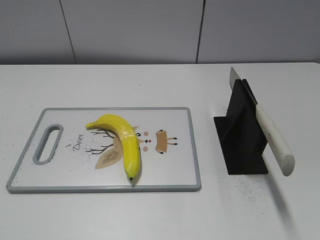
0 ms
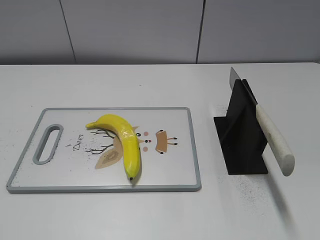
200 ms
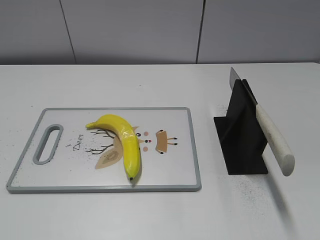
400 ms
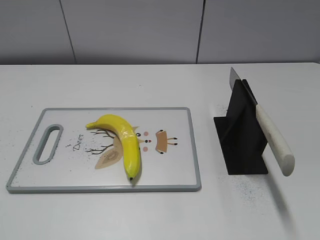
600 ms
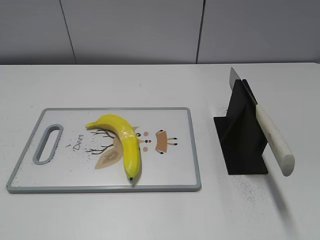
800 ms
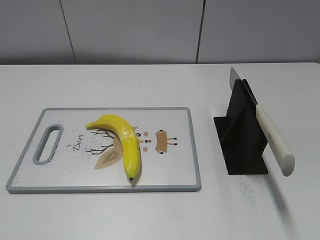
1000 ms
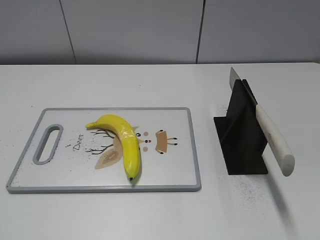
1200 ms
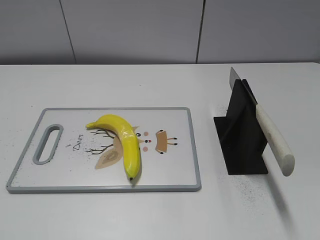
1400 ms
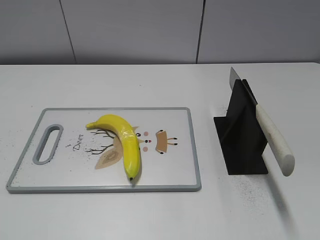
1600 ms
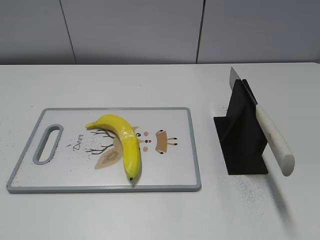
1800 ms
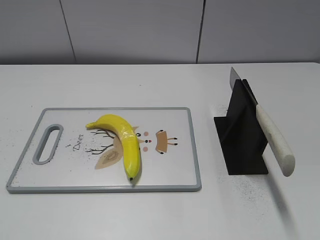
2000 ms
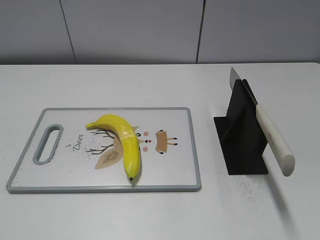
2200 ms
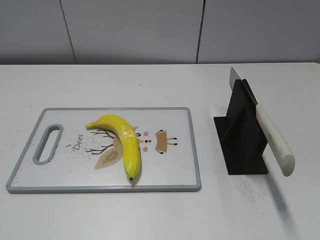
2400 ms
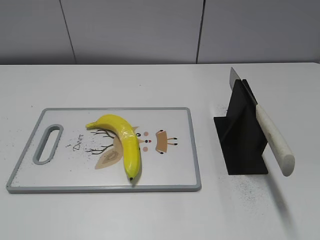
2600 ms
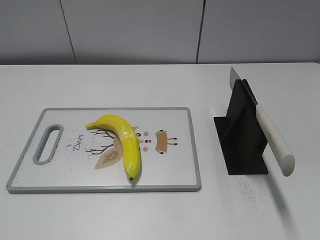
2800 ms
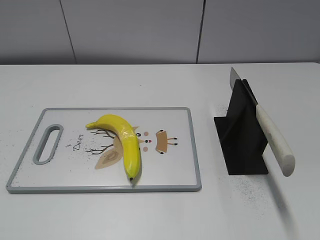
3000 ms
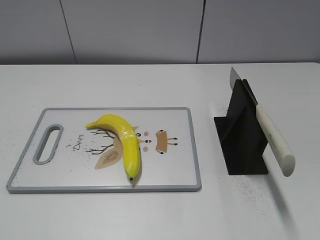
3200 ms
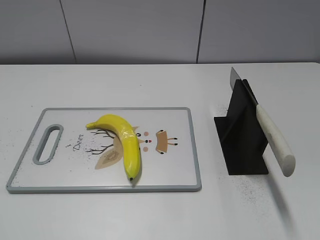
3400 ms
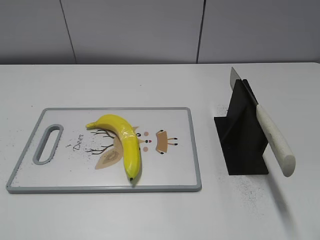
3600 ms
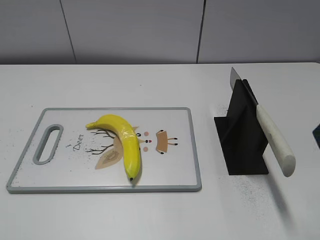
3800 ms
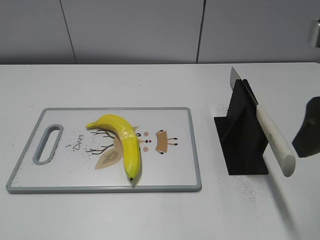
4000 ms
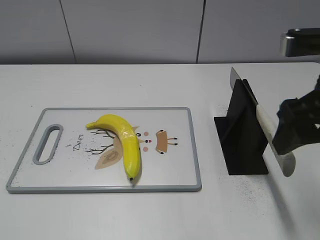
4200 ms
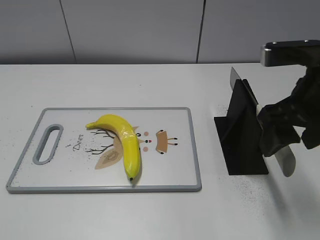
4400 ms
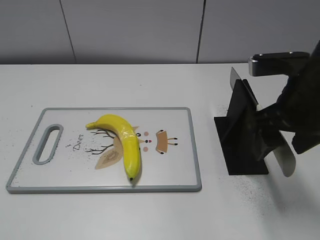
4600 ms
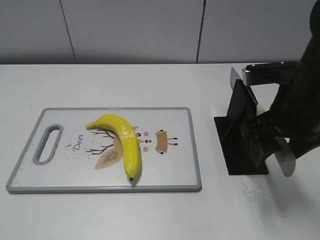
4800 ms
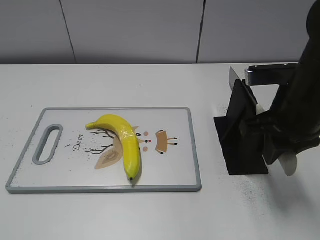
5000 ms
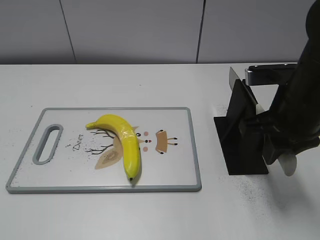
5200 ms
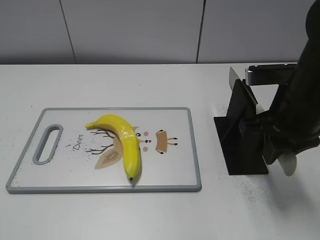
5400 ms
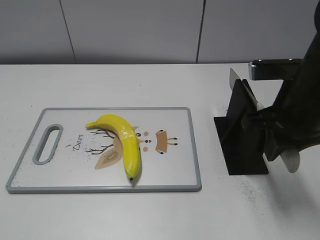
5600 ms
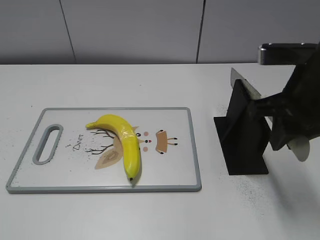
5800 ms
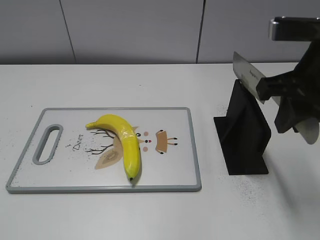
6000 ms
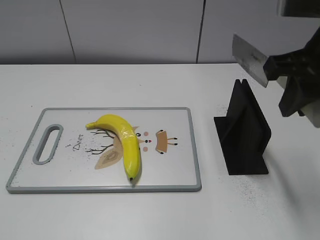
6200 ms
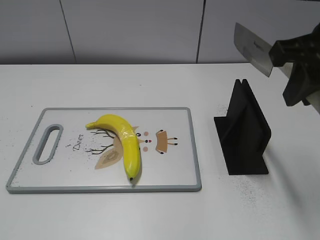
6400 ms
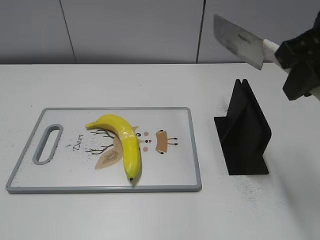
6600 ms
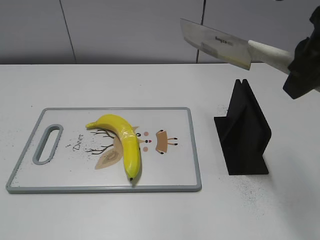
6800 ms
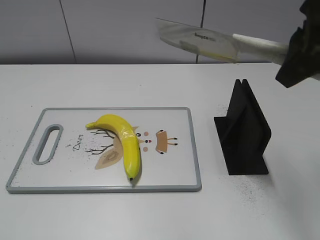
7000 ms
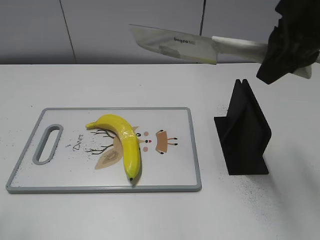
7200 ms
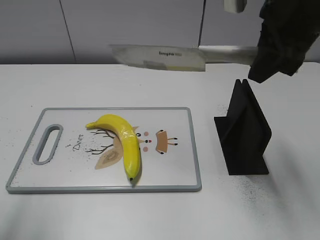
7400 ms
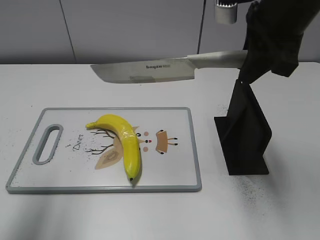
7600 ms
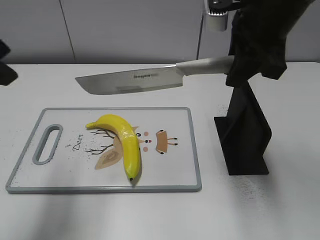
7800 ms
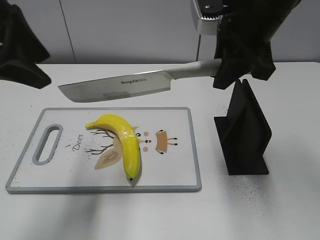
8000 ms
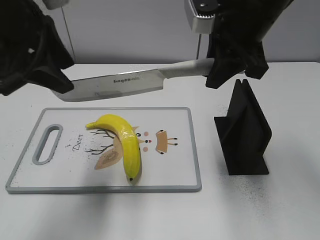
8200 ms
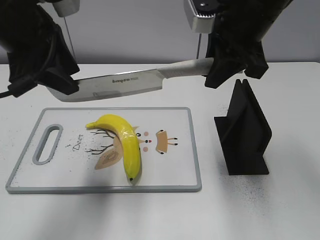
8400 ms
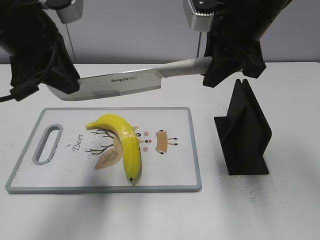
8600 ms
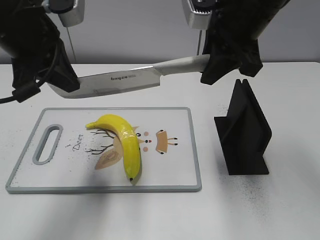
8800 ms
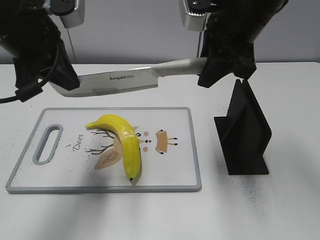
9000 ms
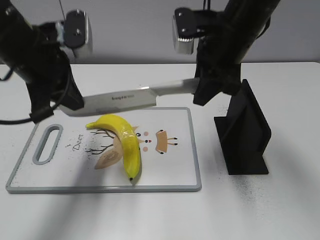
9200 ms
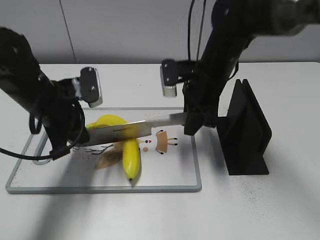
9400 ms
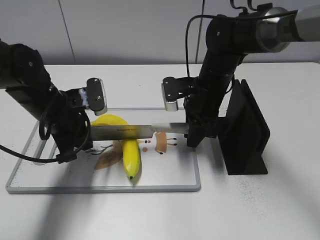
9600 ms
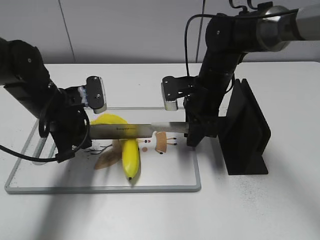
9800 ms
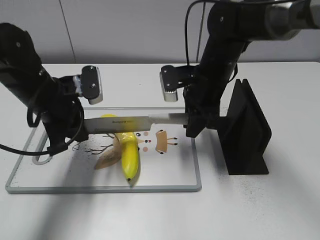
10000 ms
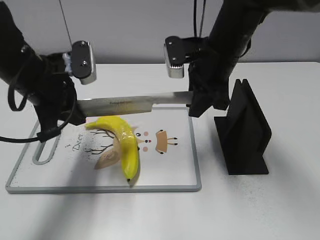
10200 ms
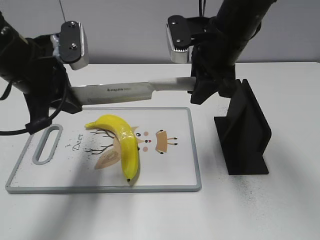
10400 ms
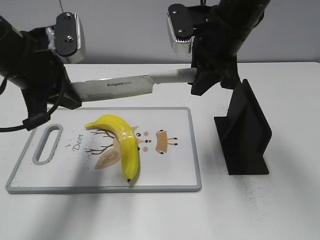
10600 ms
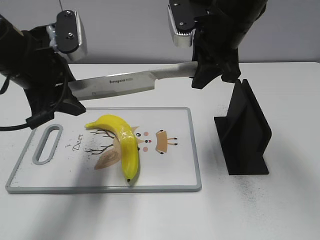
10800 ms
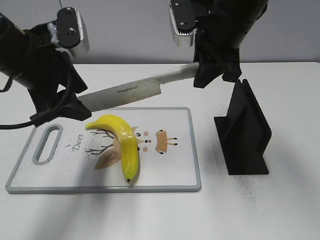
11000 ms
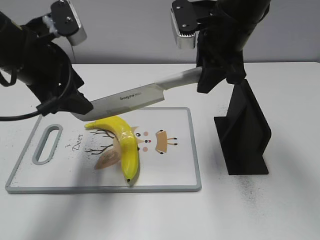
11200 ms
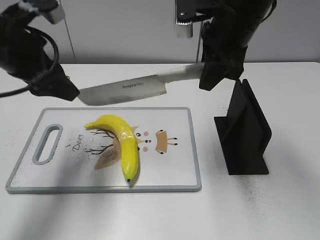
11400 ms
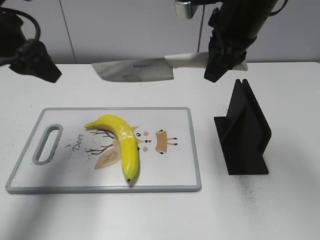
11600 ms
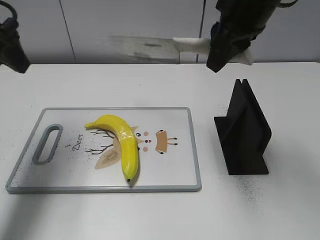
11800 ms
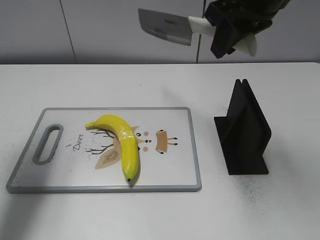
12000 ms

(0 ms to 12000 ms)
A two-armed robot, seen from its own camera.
Task of the whole recording: cut plastic banana.
Step, 0 ms - 6400 ms: Grab the knife handle with your right hand.
Step, 6800 ms - 11200 ms: Lift the knife with your right hand.
3000 ms - 4400 ms: The right gripper moves forward, to the left and downward, approximately 20 cm.
4400 ms - 6000 ms: The right gripper closes up.
6000 ms - 7600 ms: The left gripper is displaced forward and upward by approximately 20 cm. Meanwhile the right gripper shifts some 5 cm forward.
7600 ms - 9000 ms: The left gripper travels forward, to the right and downward by some 15 cm, and closes. The right gripper ends up some 5 cm from where it was.
9000 ms - 10400 ms: The left gripper goes approximately 5 cm downward, while the right gripper goes downward and returns, approximately 20 cm each way.
10400 ms - 12000 ms: The left gripper heads to the left and upward, covering about 15 cm, and opens, while the right gripper heads upward, covering roughly 10 cm.

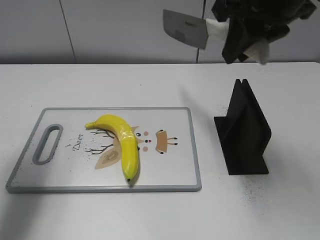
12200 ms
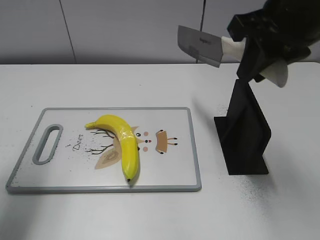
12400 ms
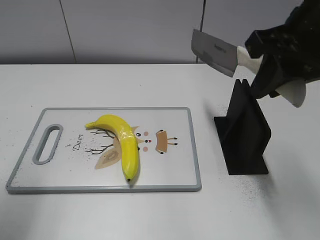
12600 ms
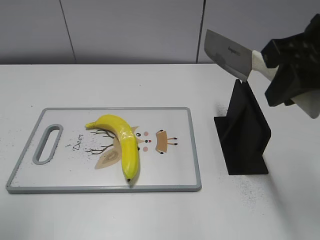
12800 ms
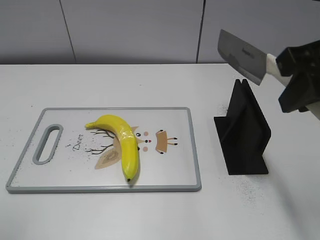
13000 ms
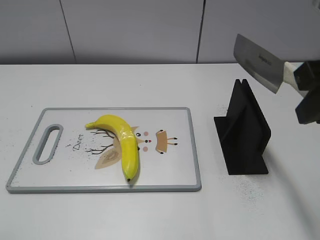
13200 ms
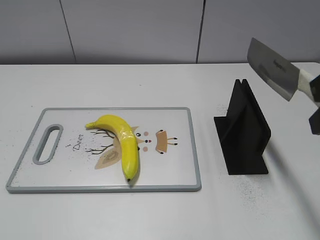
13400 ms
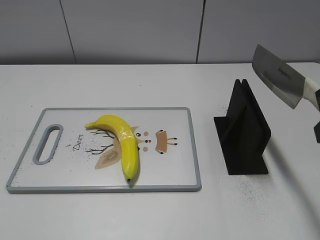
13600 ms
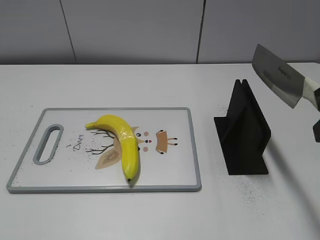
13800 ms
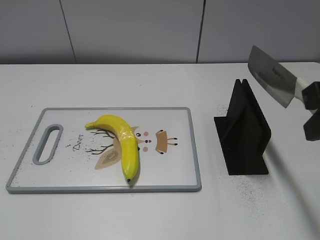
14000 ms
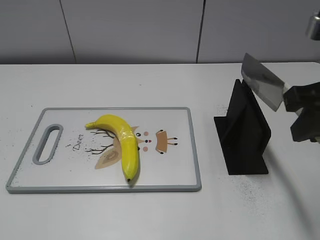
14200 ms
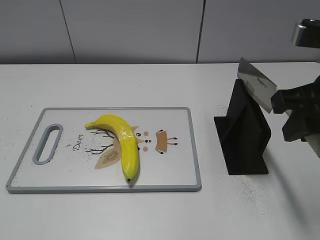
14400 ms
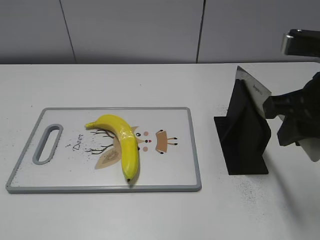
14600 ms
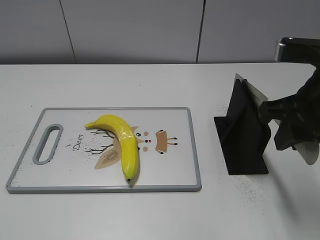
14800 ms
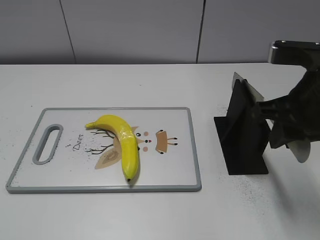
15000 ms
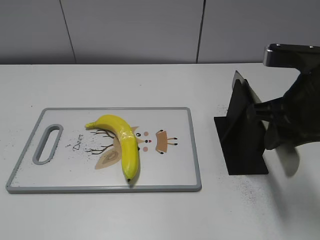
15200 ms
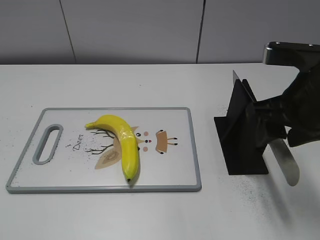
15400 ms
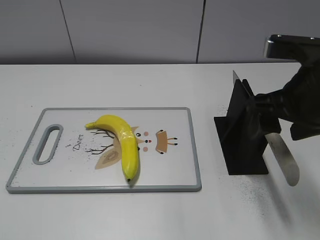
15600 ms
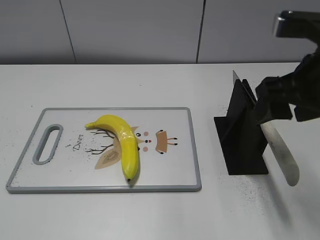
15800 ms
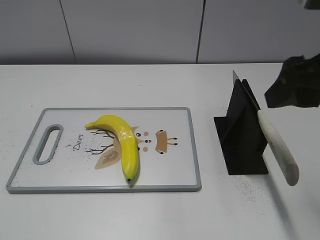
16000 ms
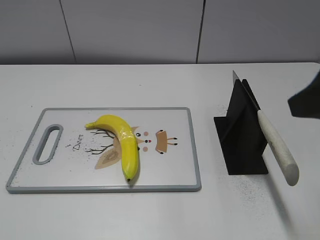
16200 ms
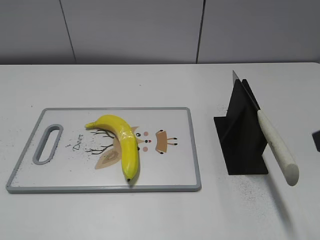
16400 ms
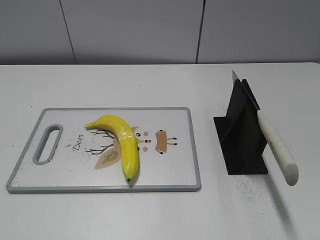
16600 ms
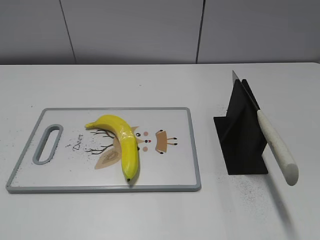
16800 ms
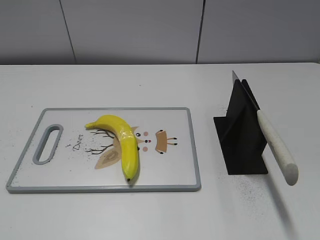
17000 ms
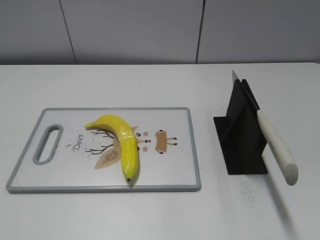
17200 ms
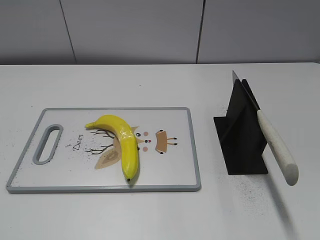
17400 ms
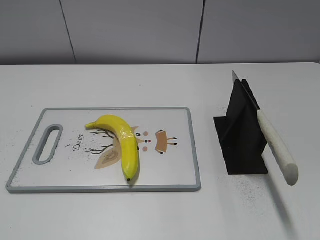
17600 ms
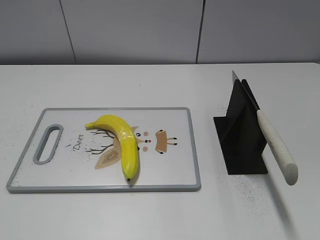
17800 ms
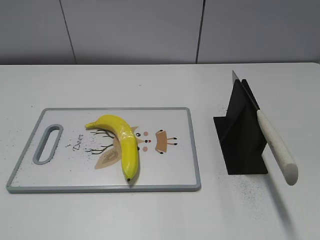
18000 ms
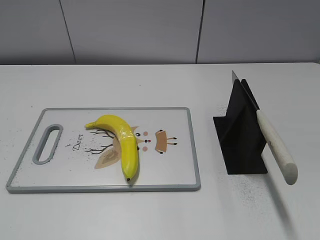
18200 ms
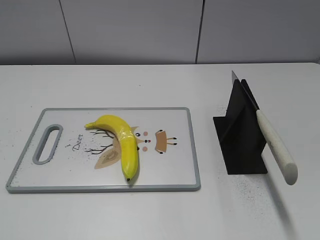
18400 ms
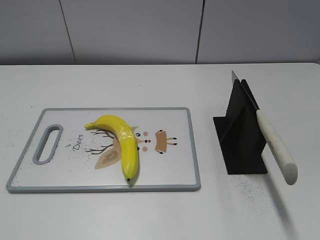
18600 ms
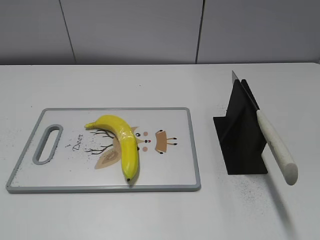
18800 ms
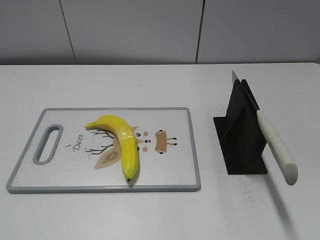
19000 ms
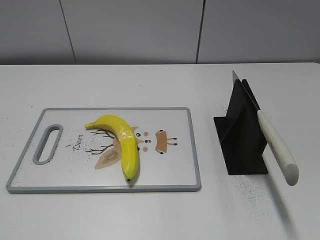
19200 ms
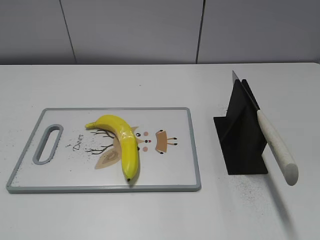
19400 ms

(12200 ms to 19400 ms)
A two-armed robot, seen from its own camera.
Task of the whole recording: cut plastic banana.
Step, 12200 ms - 13000 ms: Lift the knife with your right hand.
Step, 13200 ms - 19200 ms: Place the knife on the storage rack with your right hand.
12200 ms - 13600 ms: The right gripper heads backward and to the right, covering approximately 15 cm. Meanwhile the left gripper is displaced backward by approximately 25 cm.
13600 ms - 15000 ms: The right gripper travels downward and forward by approximately 10 cm.
15000 ms - 16600 ms: The right gripper shifts some 15 cm backward and to the right, and opens its fingers.
